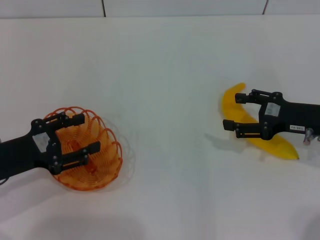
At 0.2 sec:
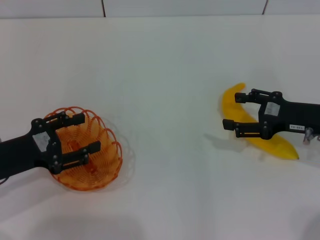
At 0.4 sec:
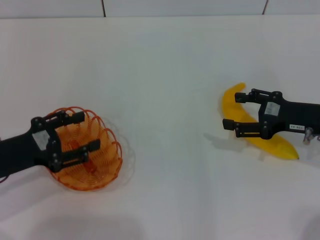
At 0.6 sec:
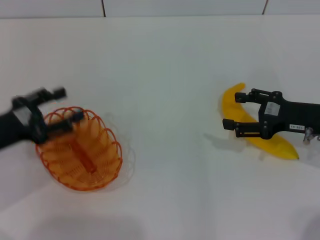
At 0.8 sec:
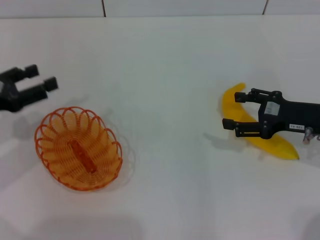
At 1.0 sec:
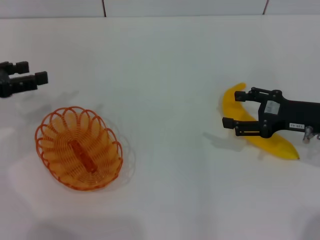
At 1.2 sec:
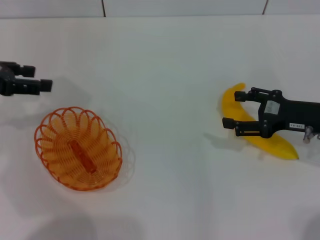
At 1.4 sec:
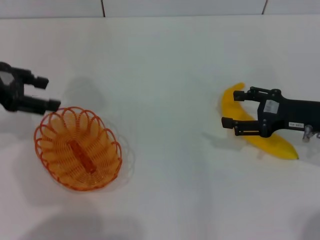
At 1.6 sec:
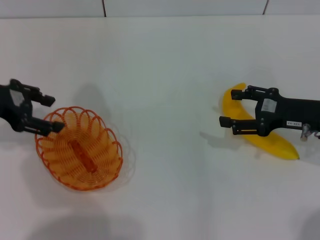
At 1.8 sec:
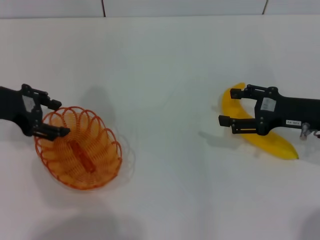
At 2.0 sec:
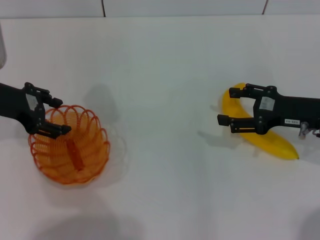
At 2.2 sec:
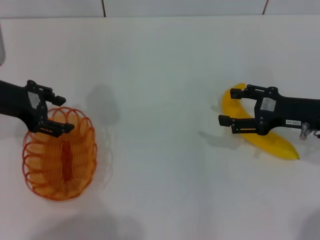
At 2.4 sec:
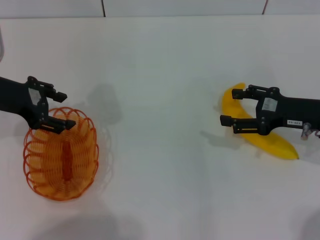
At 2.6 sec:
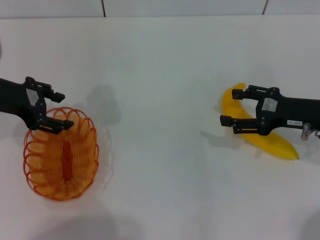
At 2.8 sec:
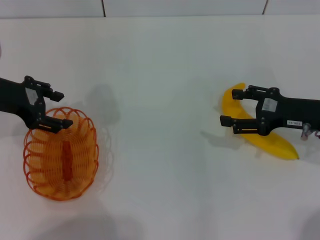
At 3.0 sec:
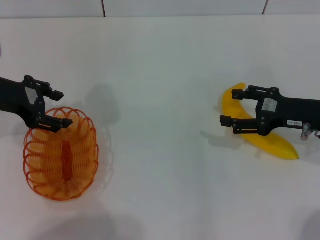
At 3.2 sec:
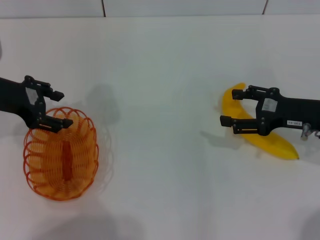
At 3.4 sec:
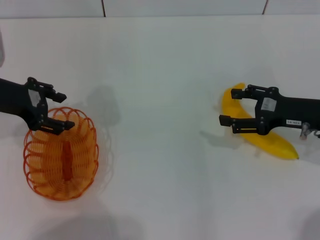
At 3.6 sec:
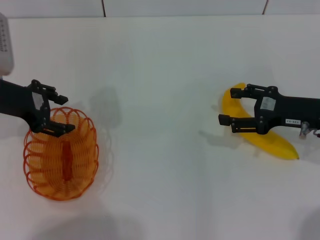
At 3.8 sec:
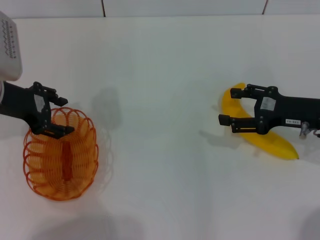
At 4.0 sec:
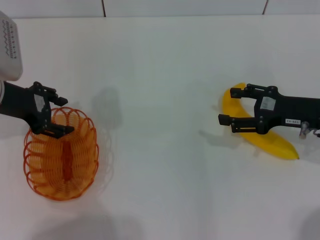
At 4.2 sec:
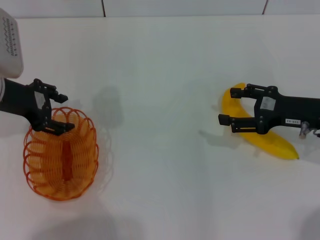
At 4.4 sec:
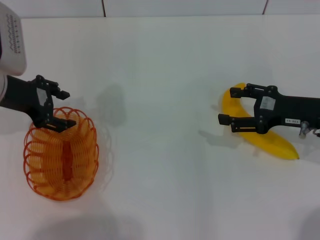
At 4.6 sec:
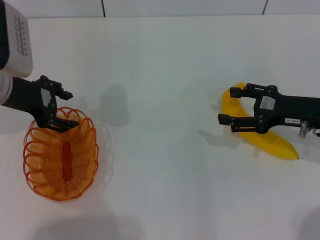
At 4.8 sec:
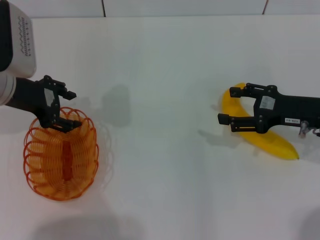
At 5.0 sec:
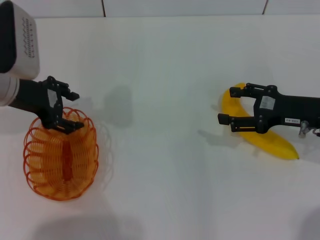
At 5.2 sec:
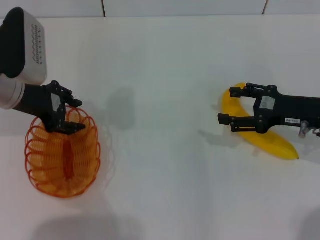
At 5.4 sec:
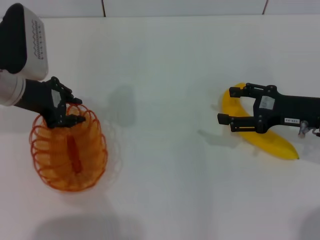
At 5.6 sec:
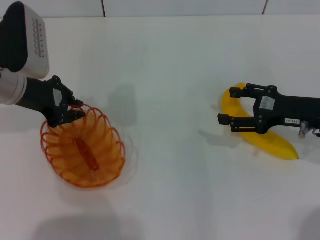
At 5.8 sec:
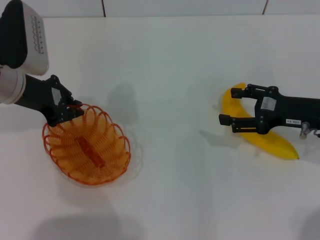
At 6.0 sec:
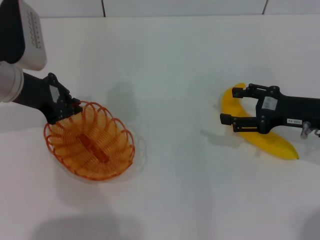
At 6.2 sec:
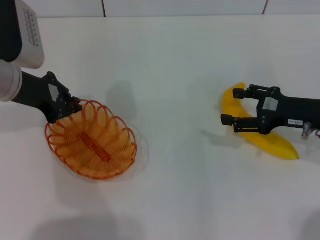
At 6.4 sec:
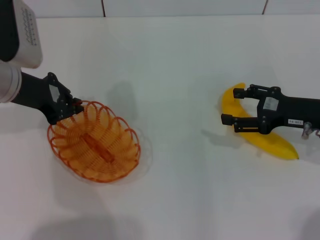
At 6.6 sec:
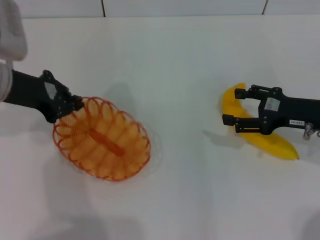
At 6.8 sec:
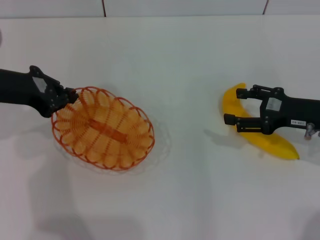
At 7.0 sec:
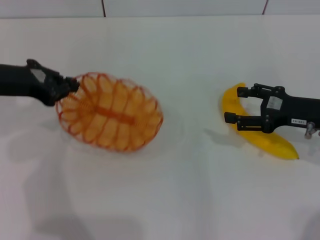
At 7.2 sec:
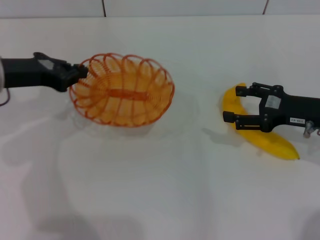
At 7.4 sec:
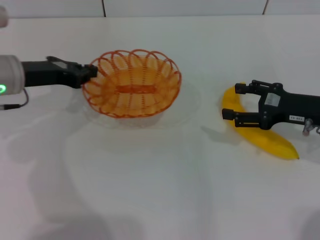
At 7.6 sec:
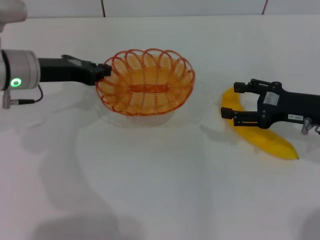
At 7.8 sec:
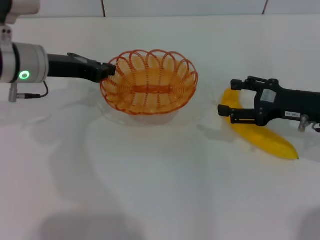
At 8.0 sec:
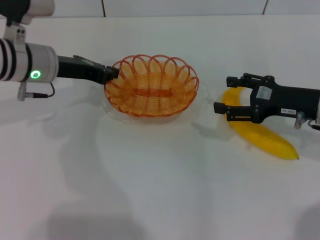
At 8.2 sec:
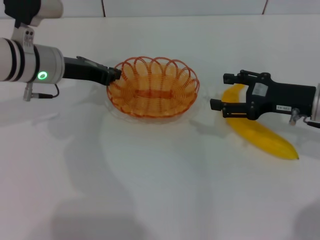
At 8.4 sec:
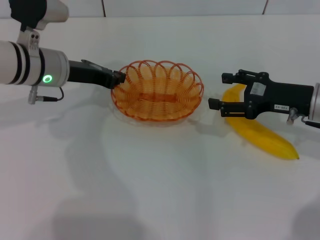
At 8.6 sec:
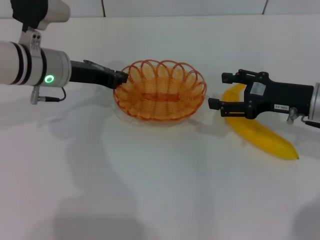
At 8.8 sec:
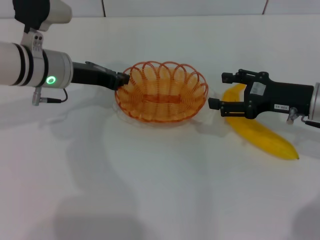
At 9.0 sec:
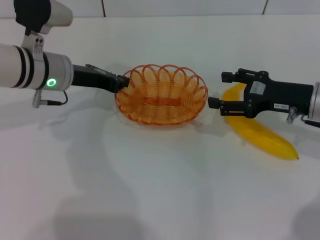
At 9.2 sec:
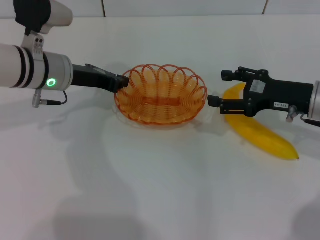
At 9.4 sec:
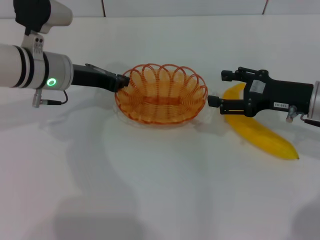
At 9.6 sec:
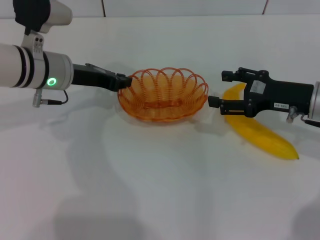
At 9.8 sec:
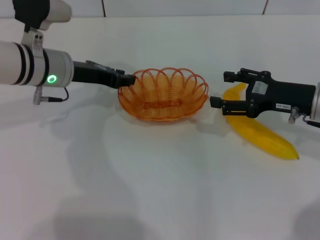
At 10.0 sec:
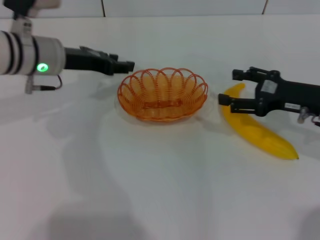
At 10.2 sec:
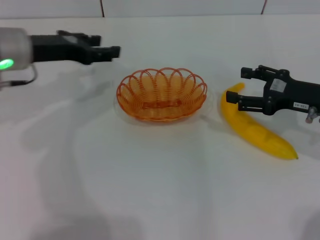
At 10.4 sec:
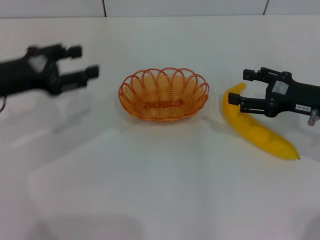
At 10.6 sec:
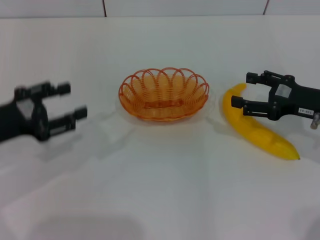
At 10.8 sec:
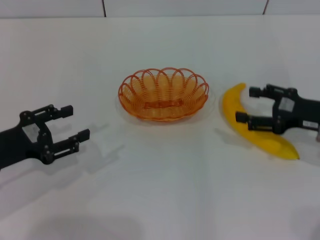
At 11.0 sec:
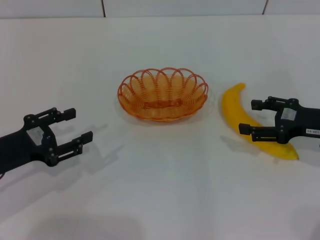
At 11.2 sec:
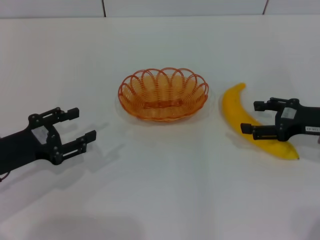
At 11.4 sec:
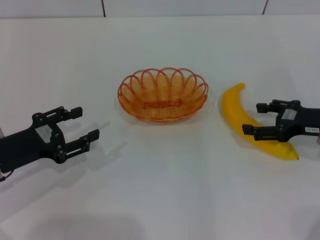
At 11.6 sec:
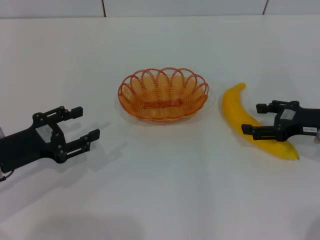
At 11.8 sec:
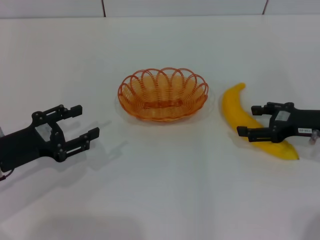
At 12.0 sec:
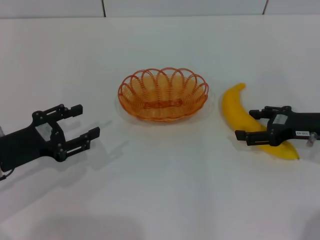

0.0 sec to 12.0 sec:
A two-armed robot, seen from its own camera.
Step, 0.0 sec to 6.4 sec: Pick up the basket with the left gripper.
Step, 6.6 sec to 9.8 sec: Place the basket in the center of view with the left gripper.
0.0 sec to 1.6 sec: The left gripper heads upward and forward, covering about 15 cm.
1.6 sec to 4.4 sec: There are only small adjustments of the grippers.
4.4 sec to 6.0 sec: The left gripper closes.
7.6 sec to 9.0 sec: The grippers stay close to where they were, moving slightly.
9.0 sec to 10.4 sec: The left gripper travels to the left and backward by approximately 10 cm, and opens its fingers.
10.4 sec to 12.0 sec: The left gripper shifts approximately 10 cm downward and backward.

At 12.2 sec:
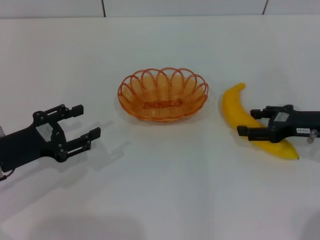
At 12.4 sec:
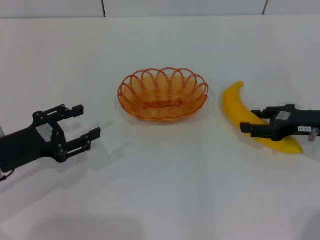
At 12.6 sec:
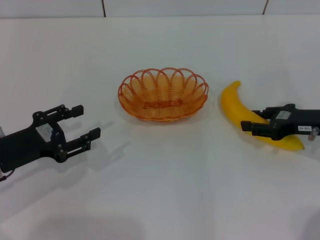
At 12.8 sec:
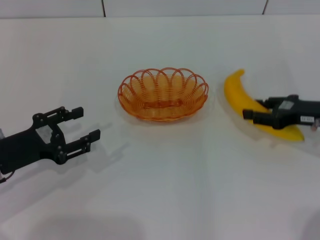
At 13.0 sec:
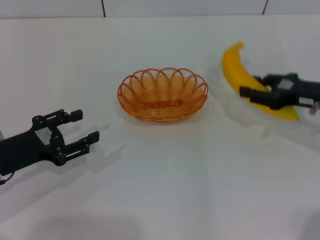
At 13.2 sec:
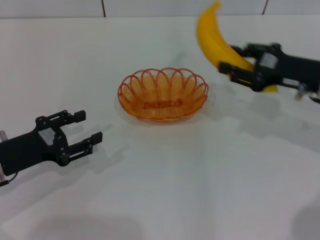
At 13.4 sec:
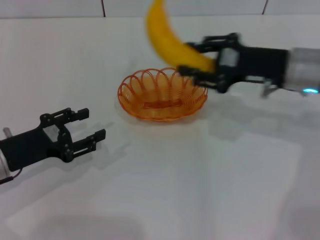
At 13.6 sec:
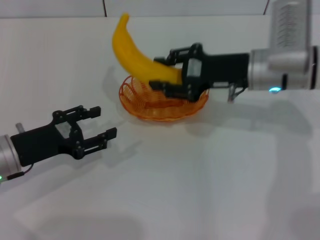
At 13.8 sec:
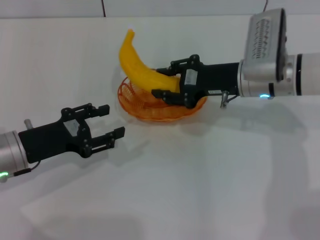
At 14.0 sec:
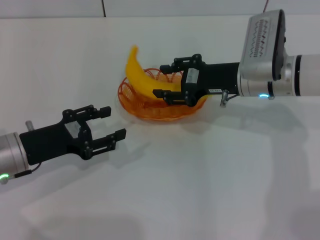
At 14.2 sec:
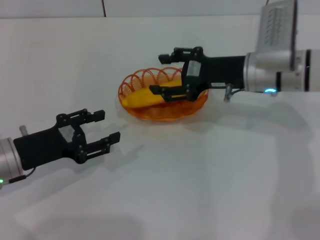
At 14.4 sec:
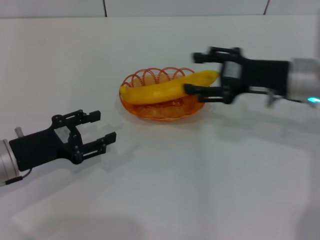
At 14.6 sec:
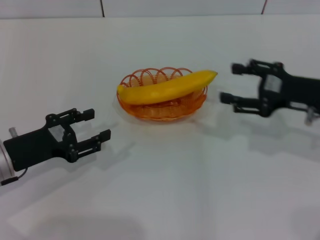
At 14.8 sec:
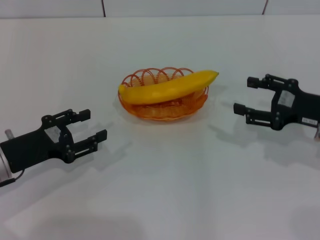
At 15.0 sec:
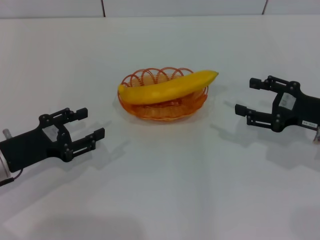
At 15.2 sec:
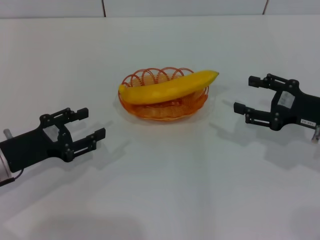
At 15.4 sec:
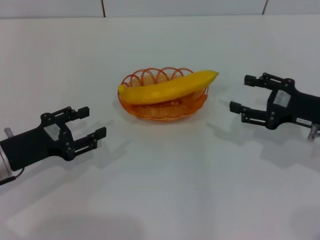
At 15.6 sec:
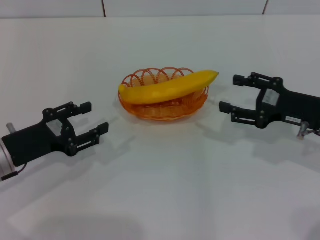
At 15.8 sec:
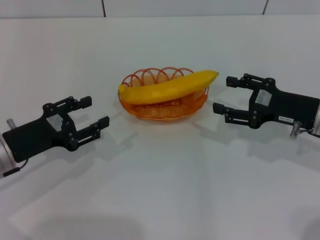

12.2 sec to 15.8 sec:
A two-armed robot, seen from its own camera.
Step, 13.0 sec to 14.0 sec: Place the banana into the basket with the right gripper.
12.2 sec to 14.0 sec: The right gripper shifts about 15 cm to the left and forward, and closes.
14.0 sec to 15.8 sec: The right gripper is displaced to the right and backward by about 15 cm, and opens up.
